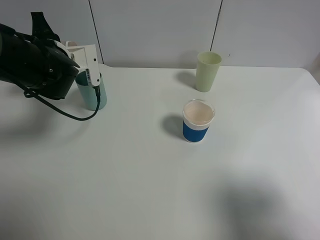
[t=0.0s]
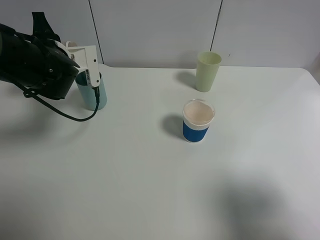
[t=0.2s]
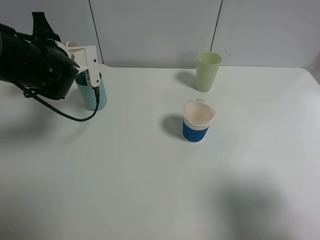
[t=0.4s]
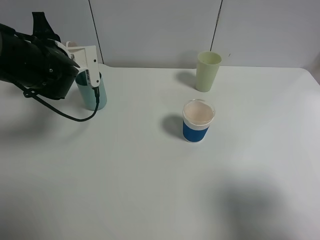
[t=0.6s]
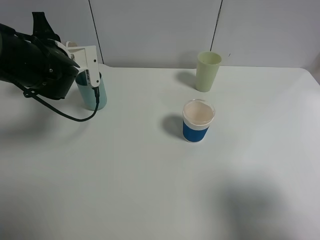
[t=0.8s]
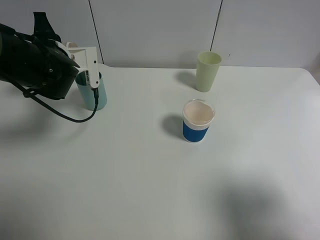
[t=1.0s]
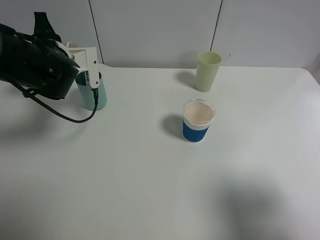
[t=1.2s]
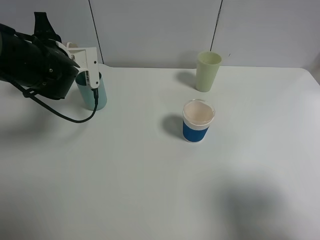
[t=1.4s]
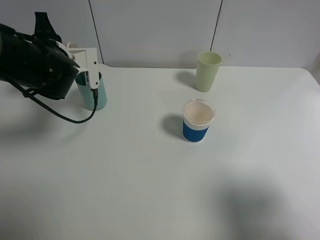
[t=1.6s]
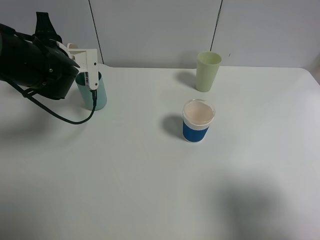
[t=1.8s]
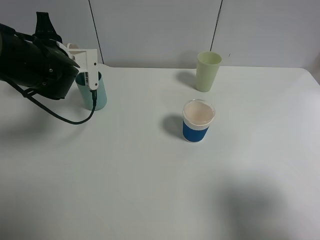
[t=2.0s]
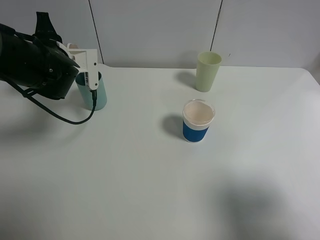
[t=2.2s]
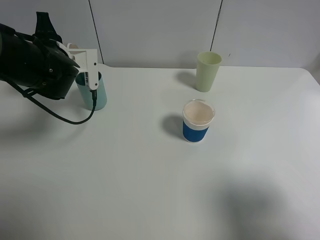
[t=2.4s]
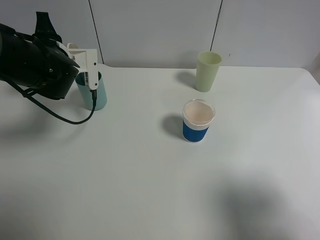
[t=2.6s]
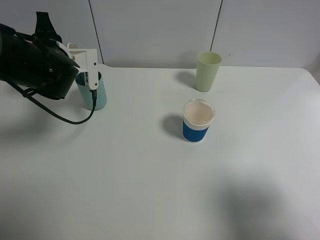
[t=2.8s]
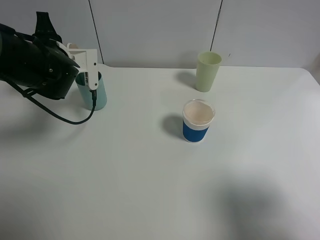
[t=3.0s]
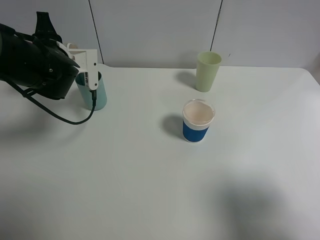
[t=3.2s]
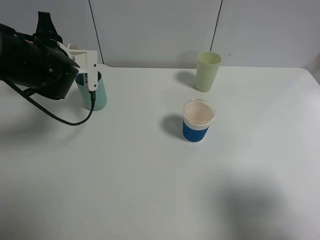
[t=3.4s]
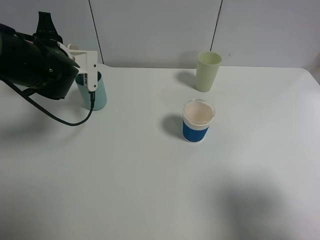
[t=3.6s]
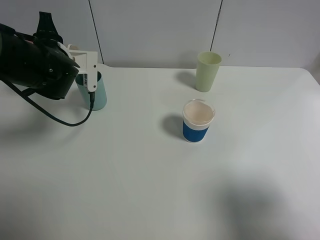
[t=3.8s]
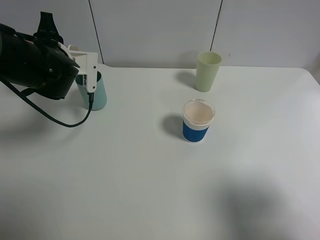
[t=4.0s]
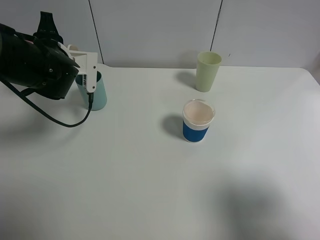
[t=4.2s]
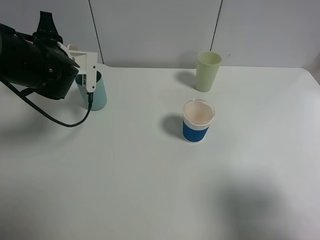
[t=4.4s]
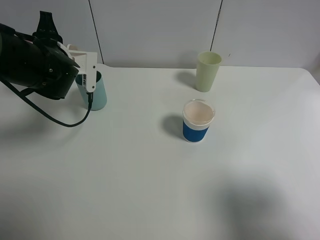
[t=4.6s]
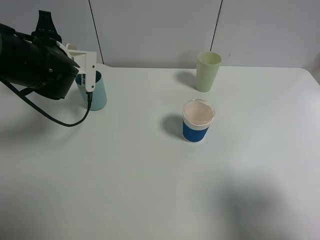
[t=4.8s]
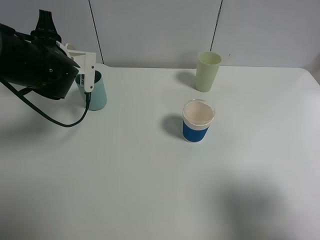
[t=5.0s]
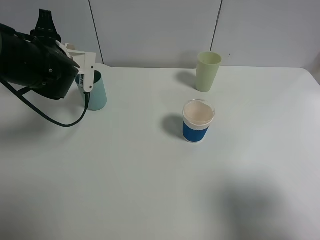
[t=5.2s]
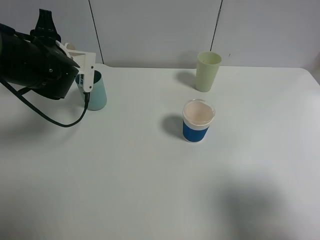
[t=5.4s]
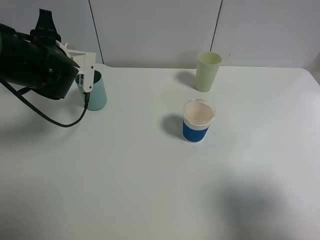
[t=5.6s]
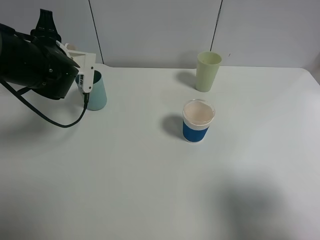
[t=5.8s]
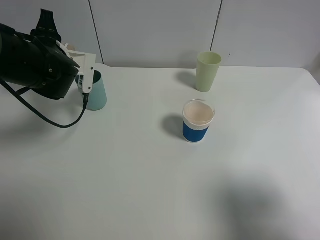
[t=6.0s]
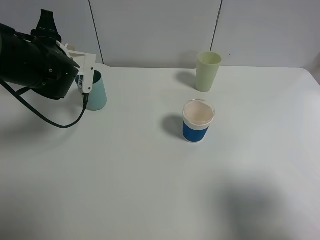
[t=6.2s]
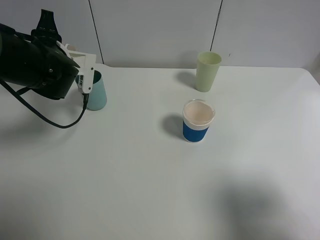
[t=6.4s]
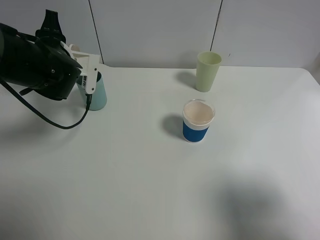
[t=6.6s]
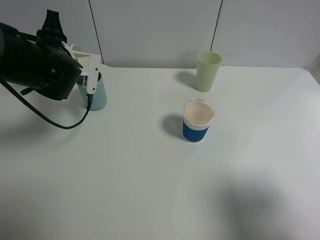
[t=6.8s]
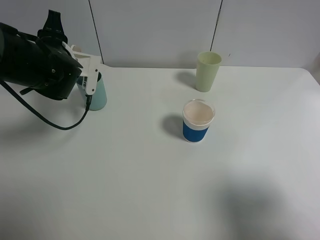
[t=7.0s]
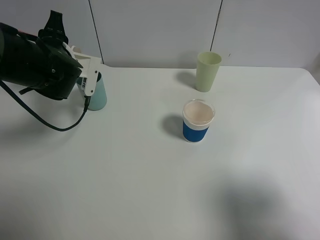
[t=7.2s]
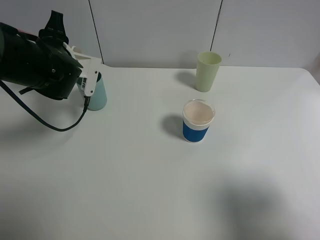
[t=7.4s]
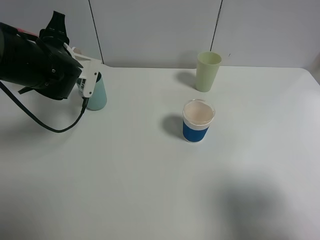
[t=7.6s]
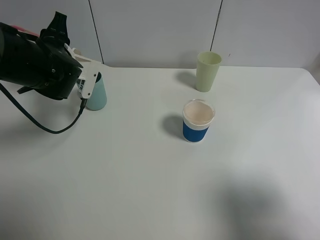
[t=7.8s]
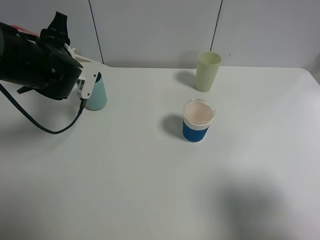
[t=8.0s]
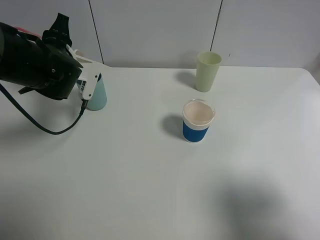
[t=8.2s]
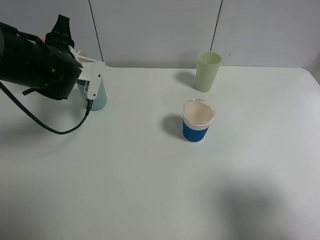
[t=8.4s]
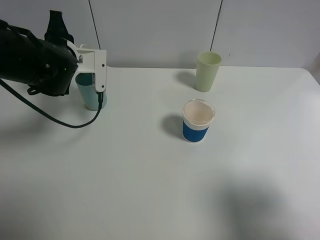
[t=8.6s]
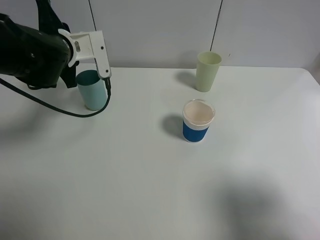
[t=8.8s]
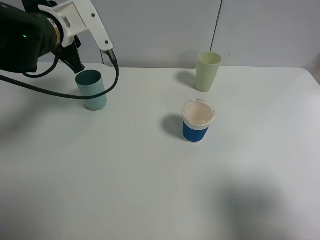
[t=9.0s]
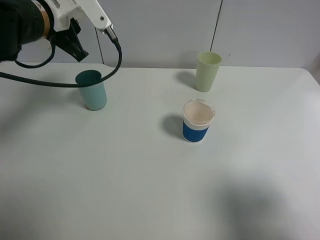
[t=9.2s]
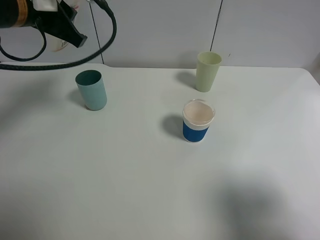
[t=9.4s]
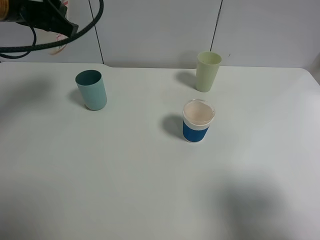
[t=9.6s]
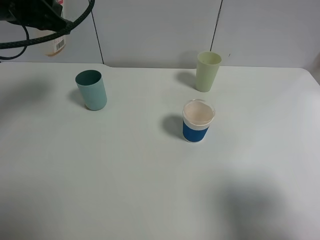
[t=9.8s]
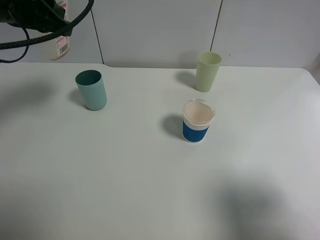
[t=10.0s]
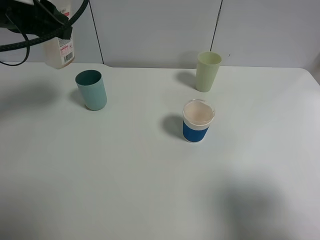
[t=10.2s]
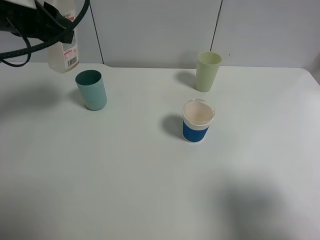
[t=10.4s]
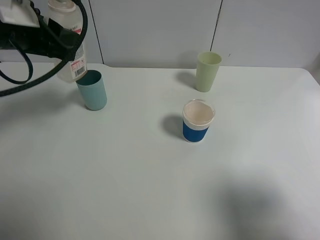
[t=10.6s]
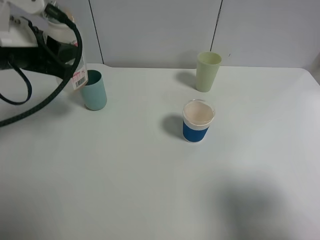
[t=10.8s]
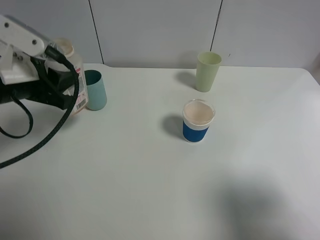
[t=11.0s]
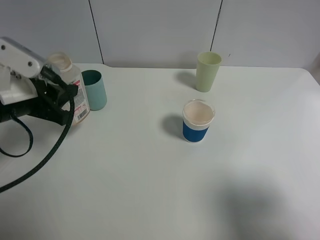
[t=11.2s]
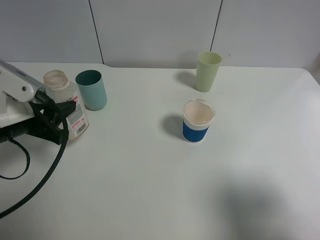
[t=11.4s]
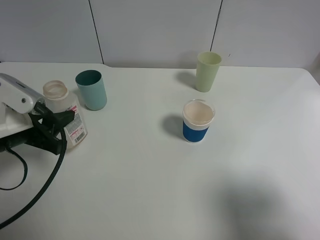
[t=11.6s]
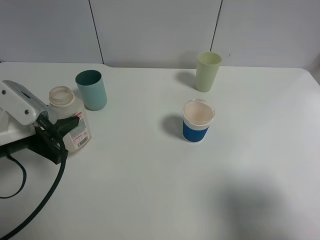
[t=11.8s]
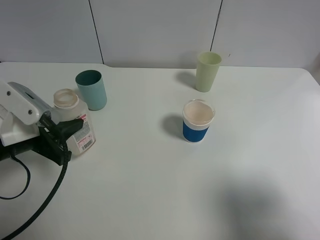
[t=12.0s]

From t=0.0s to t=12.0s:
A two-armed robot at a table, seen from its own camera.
Task of the whole recording: use a gripper to hold the bottle of the drink and pour it into a random cup.
Step, from t=0.0s to t=8.8s: Pour the cranberry juice into the cyan cup with the left gripper.
From t=0.0s to t=1.6s: Neither gripper changes place.
From t=1.6s to t=3.0s: Both grippers stay put.
From t=3.0s to t=4.4s: The grippers stay close to where they were, moving slightly.
From t=4.4s to t=6.0s: Both grippers stay about where they are.
From t=6.0s to t=7.6s: The grippers make only small movements.
From t=7.6s to t=9.0s: The left gripper goes roughly 5 cm upward.
From t=9.0s to t=10.4s: The left gripper moves upward, roughly 5 cm.
From t=10.4s to t=12.0s: The left gripper travels downward and backward by some 20 cm.

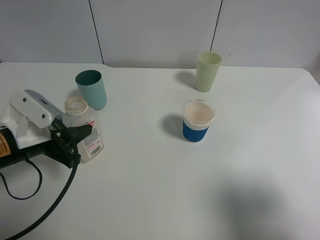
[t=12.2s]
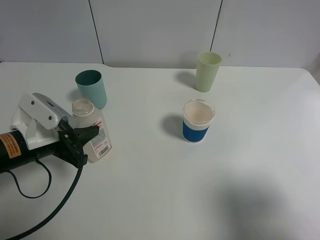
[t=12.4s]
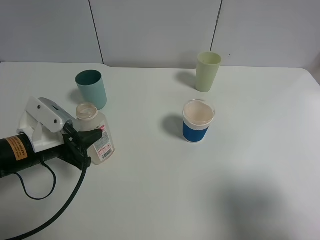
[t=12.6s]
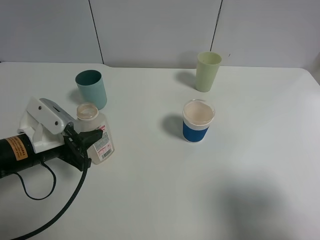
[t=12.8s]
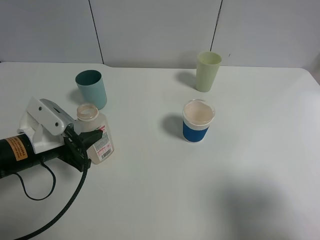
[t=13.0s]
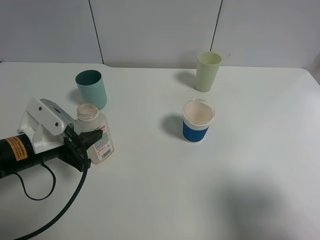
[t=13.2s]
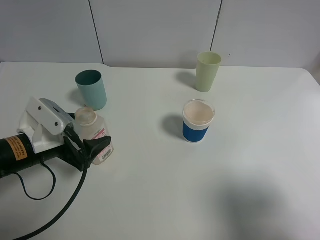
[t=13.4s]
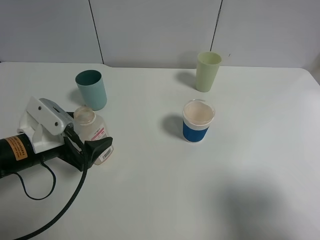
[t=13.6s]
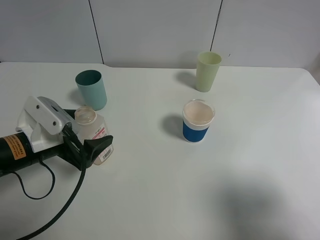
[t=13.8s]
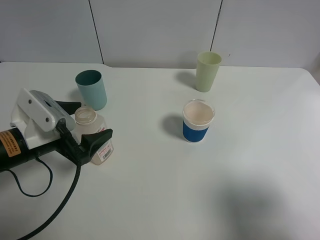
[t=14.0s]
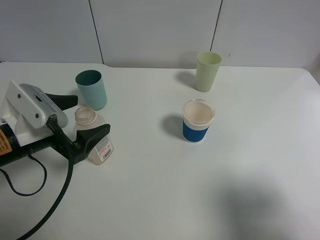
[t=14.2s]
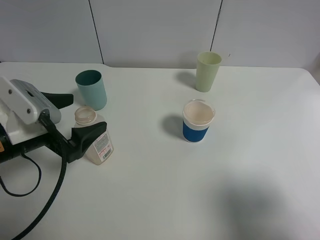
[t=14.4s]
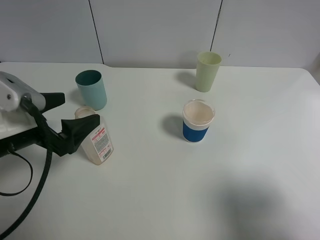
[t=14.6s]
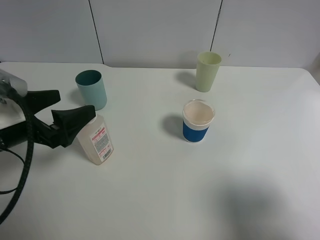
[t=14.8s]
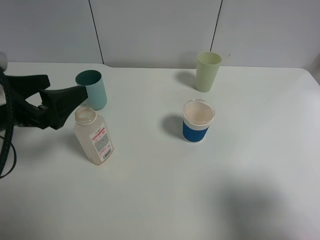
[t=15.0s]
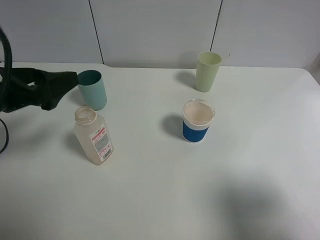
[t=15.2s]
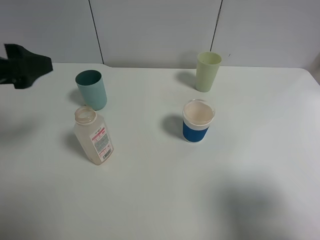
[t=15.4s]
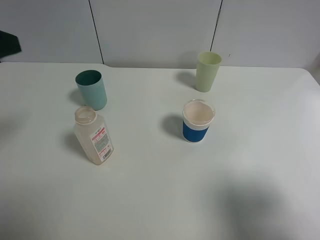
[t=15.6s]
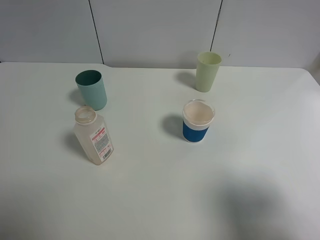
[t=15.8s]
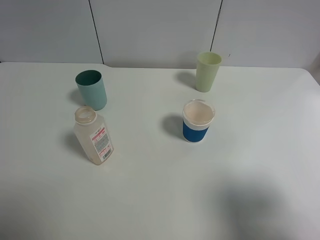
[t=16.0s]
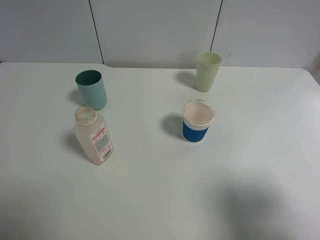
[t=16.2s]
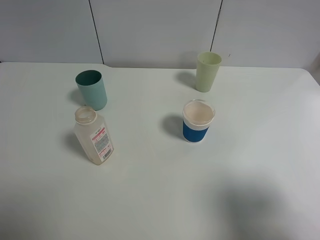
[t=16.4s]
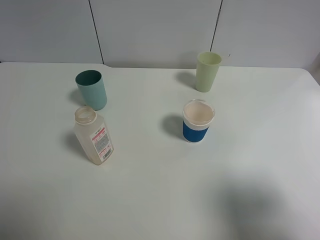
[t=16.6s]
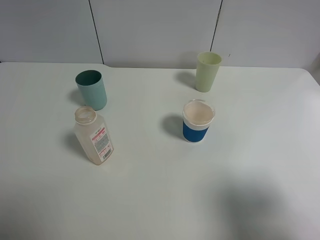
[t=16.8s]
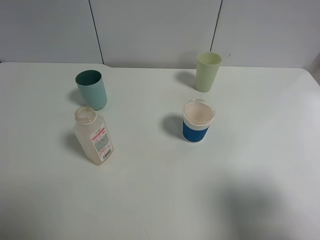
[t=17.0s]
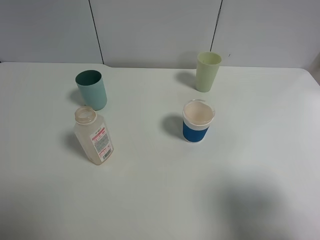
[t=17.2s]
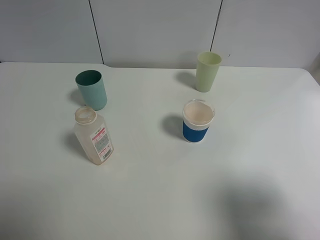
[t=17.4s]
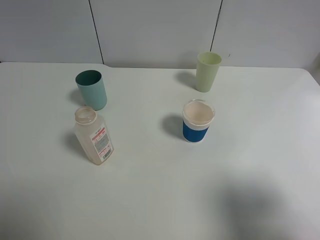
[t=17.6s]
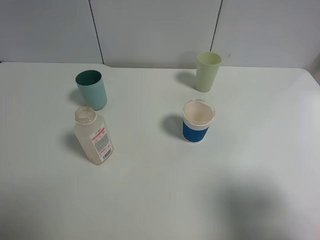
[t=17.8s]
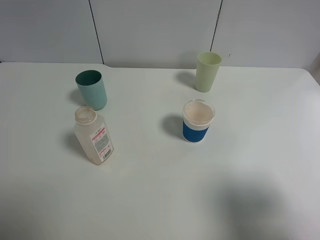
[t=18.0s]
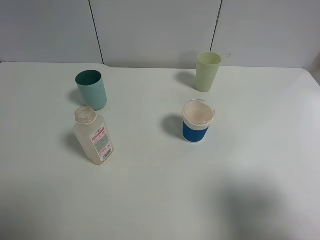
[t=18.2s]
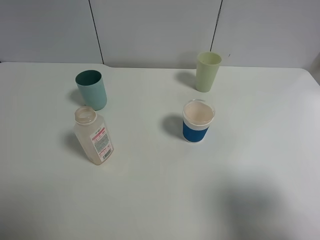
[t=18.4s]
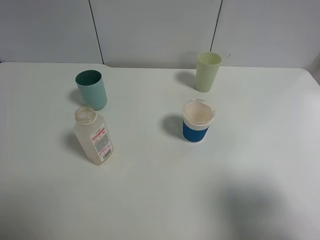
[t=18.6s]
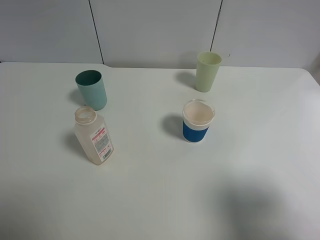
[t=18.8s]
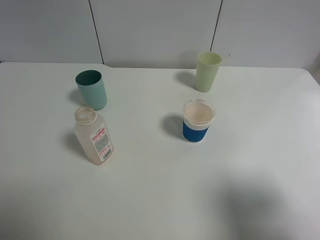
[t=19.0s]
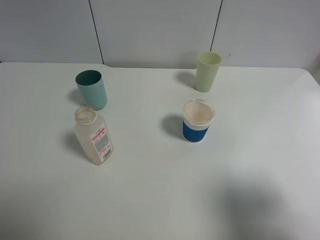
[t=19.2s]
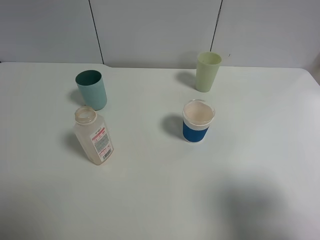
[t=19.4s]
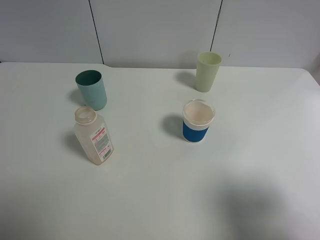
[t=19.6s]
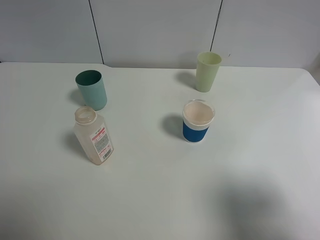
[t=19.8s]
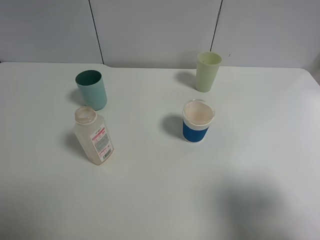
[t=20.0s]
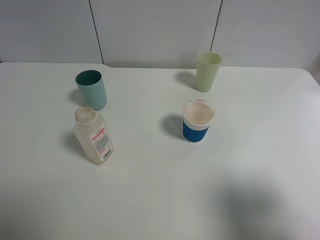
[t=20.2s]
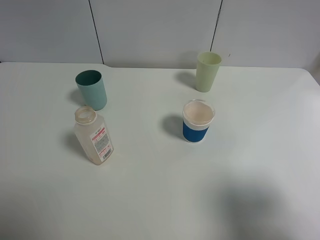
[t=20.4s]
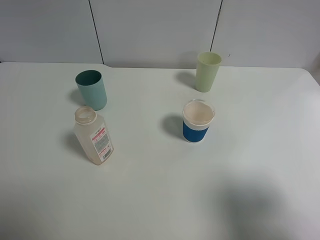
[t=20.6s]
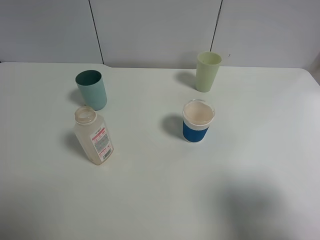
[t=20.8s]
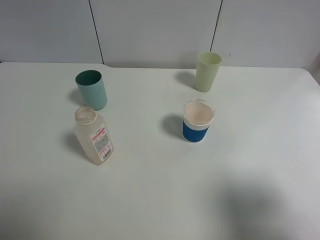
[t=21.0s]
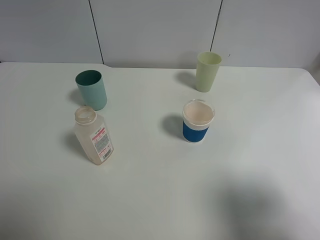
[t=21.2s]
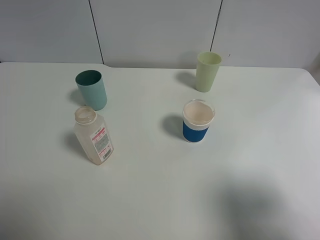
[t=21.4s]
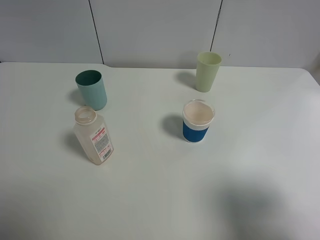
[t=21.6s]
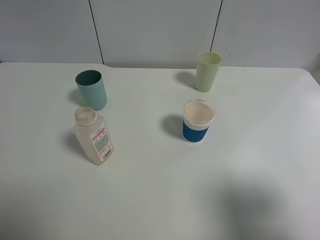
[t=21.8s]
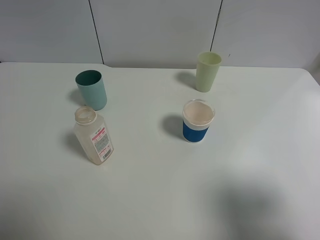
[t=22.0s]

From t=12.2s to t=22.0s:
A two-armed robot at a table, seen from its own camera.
Task of the whole recording: use a gripper to hold the bottle of the drink and pour it into a random cup.
From t=12.2s to t=13.6s: The left gripper opens.
From t=13.6s to t=15.0s: The left gripper goes roughly 10 cm upward.
From t=15.0s to t=16.4s: The left gripper moves backward, to the left and upward, some 25 cm.
From t=20.6s to t=22.0s: Both grippers stay about where they are.
